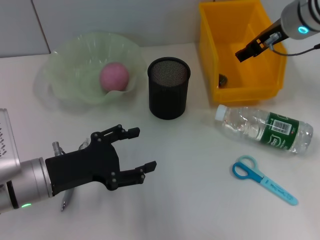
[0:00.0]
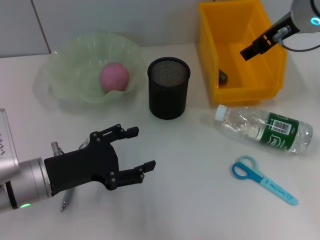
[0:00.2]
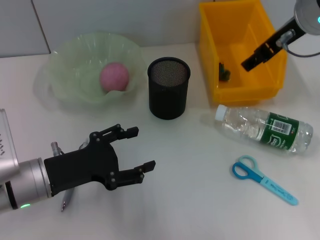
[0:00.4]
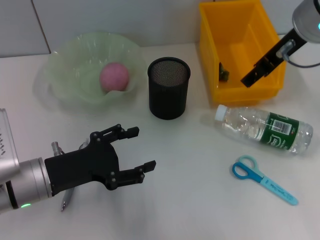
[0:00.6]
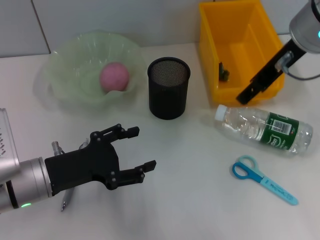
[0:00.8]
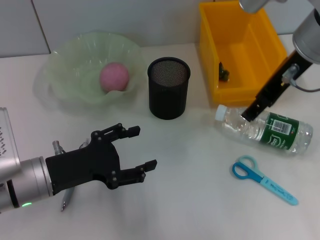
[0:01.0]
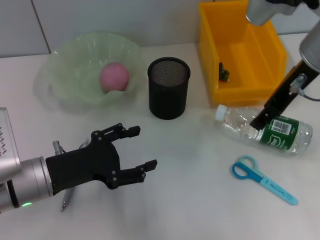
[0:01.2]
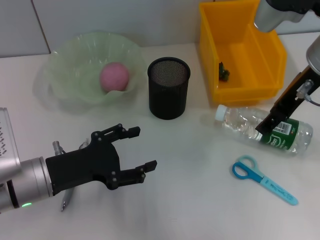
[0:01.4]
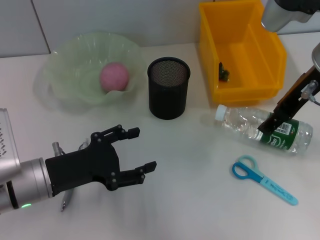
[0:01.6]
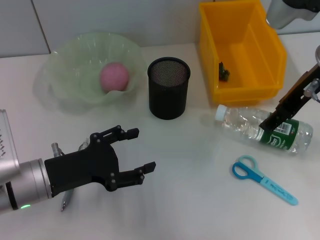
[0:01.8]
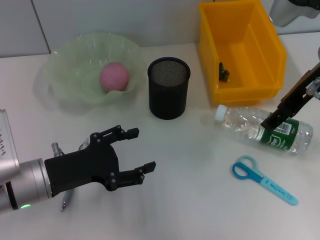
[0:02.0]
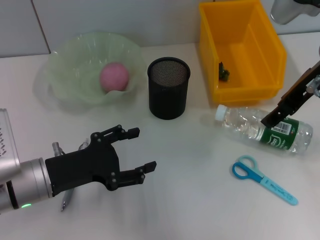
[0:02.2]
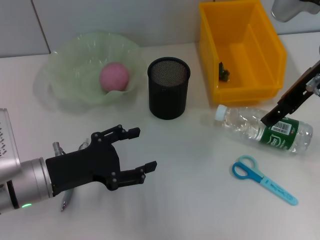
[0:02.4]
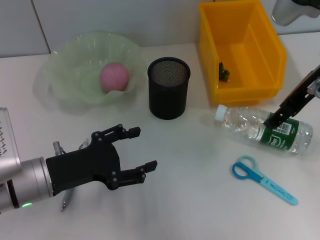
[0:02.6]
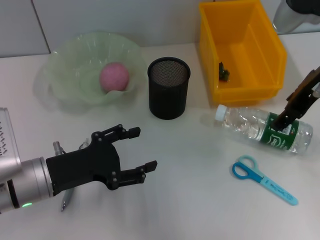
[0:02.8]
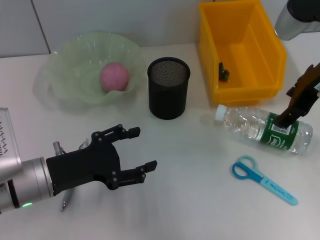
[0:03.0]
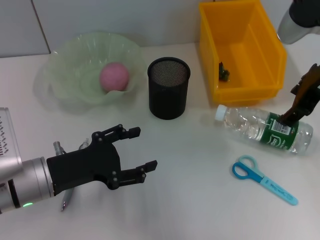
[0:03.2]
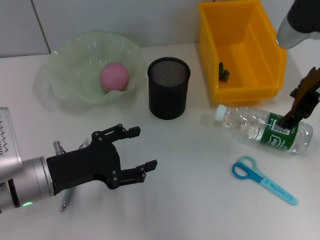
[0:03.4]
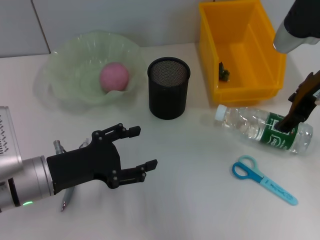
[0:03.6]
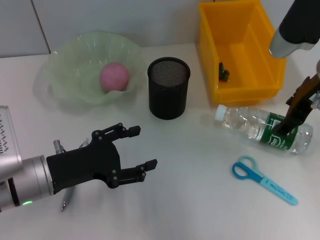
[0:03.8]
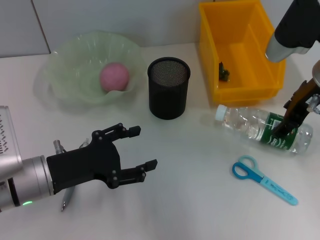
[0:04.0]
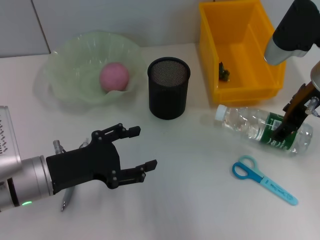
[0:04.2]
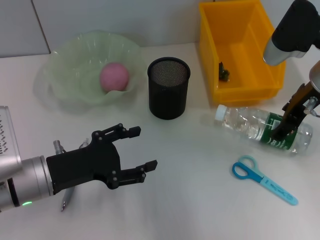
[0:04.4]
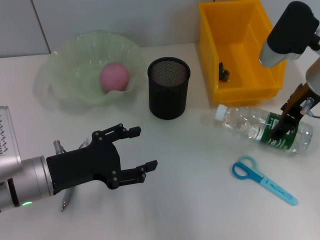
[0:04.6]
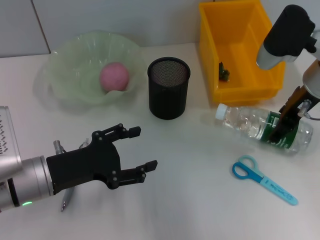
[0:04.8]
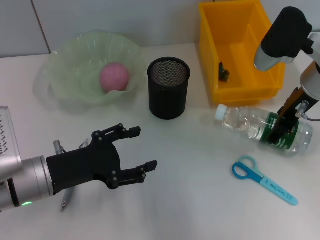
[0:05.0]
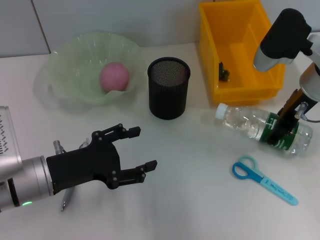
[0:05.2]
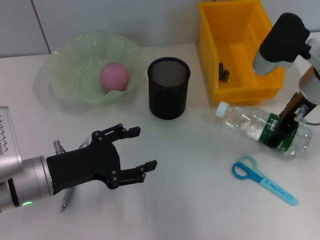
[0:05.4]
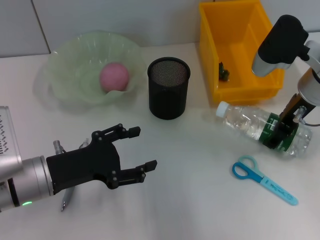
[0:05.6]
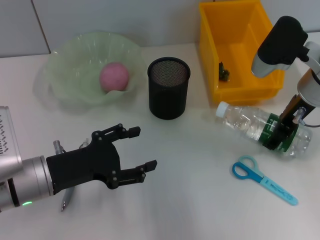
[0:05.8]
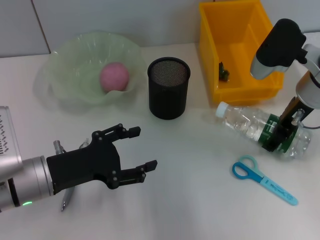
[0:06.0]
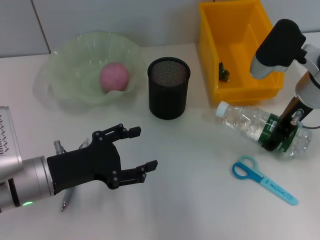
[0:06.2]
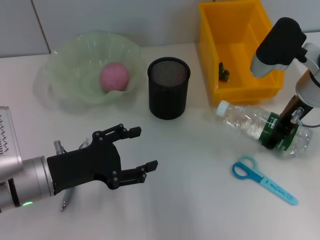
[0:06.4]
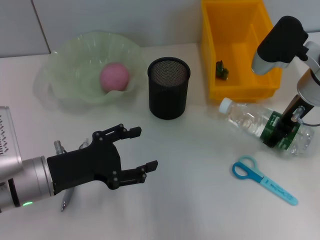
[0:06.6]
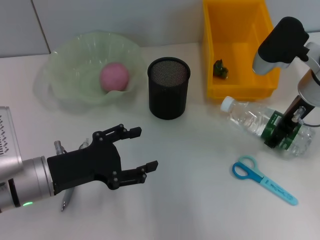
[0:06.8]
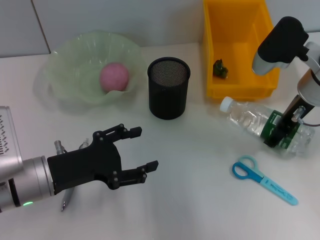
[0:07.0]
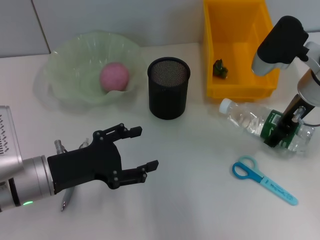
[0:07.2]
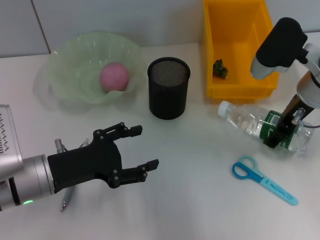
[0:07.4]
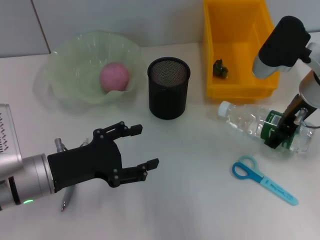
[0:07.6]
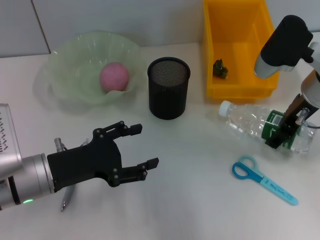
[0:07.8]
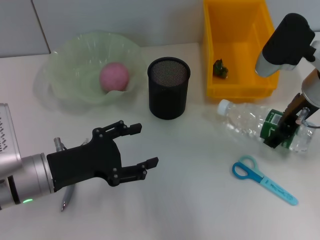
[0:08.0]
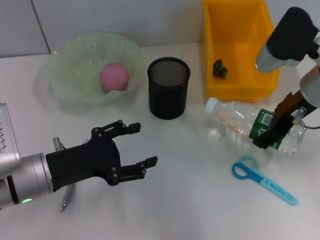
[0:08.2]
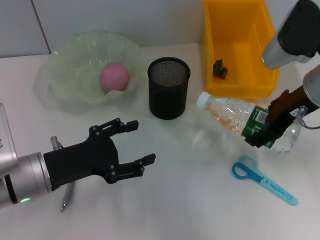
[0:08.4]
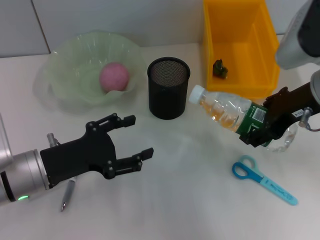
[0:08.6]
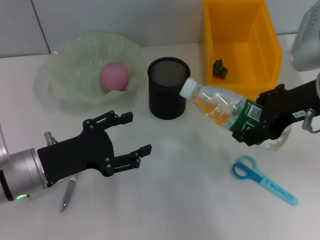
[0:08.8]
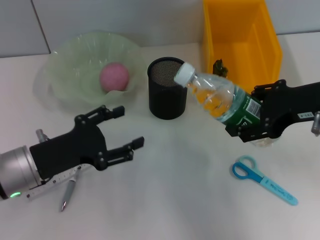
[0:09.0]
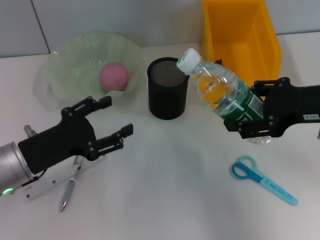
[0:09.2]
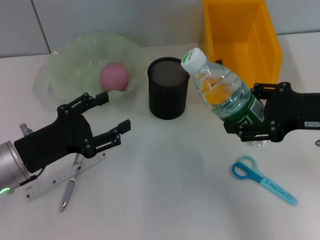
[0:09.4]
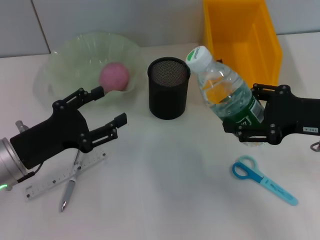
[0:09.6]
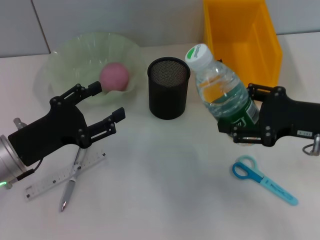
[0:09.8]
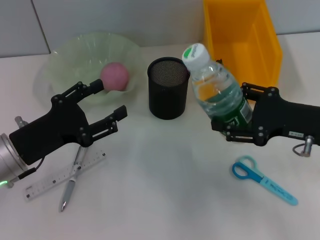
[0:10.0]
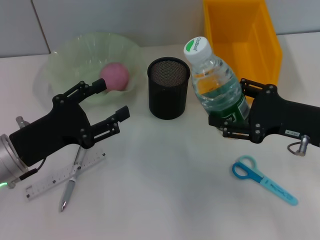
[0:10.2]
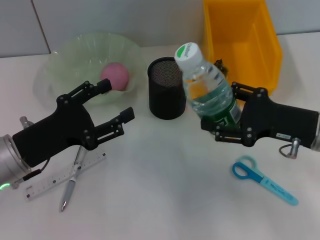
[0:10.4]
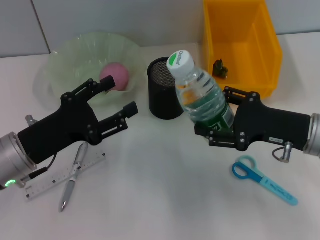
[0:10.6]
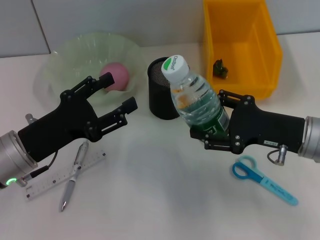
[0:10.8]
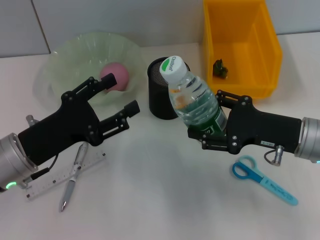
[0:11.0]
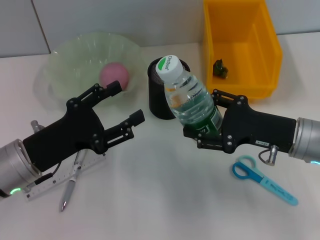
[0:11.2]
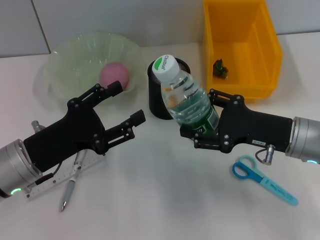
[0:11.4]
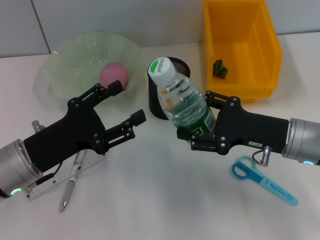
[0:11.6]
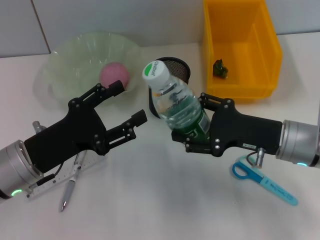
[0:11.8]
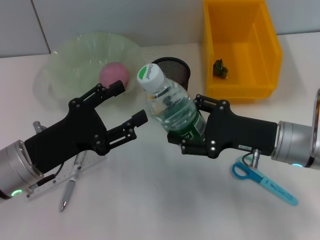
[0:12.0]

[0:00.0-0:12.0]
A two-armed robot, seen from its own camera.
Step, 0:00.4 to 0:07.2: Grab the water bottle with the right hand.
0:00.0 to 0:01.6: The right gripper moves backward, some 10 cm.
0:01.6 to 0:03.0: The grippers make only small movements.
0:03.0 to 0:04.4: The right gripper is displaced downward by approximately 5 cm.
0:04.4 to 0:06.0: The grippers move only a little.
0:06.0 to 0:07.6: Neither gripper changes place.
0:07.6 to 0:09.0: The right gripper travels backward by roughly 10 cm.
0:09.0 to 0:10.4: The right gripper moves downward, about 10 cm.
0:10.4 to 0:12.0: The right gripper changes place by some 5 cm.

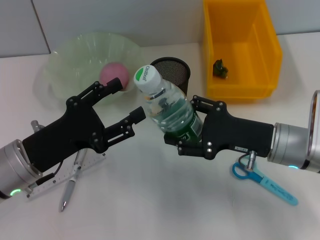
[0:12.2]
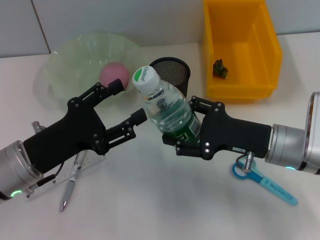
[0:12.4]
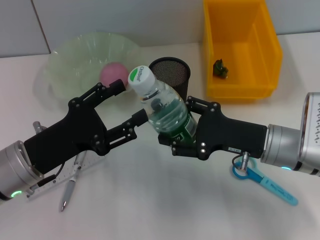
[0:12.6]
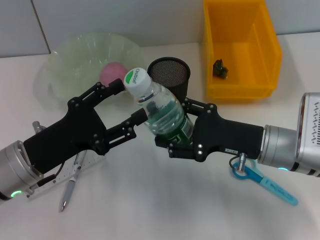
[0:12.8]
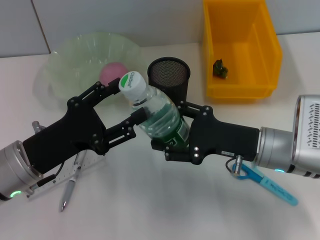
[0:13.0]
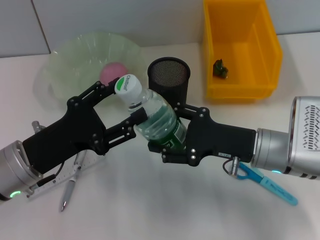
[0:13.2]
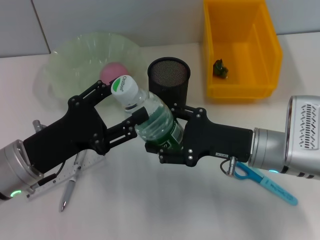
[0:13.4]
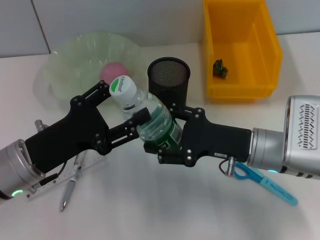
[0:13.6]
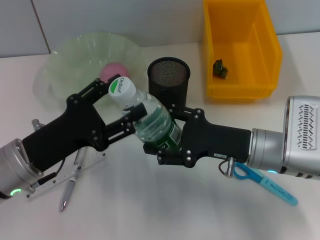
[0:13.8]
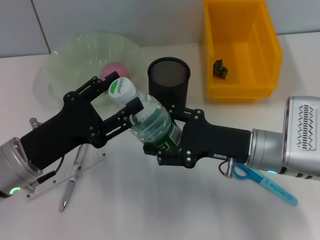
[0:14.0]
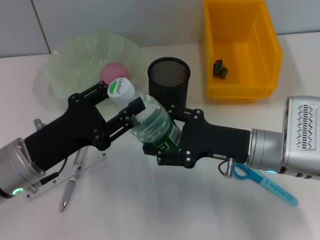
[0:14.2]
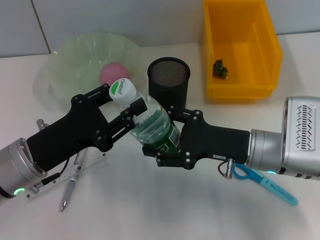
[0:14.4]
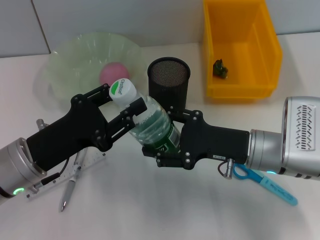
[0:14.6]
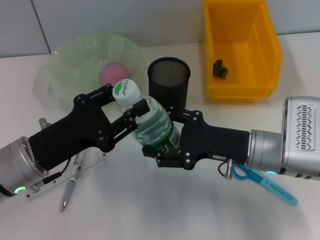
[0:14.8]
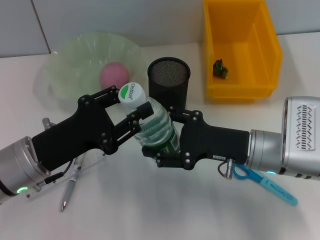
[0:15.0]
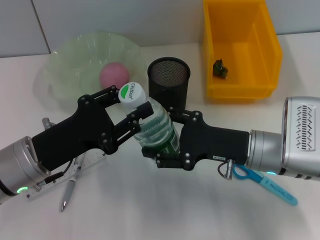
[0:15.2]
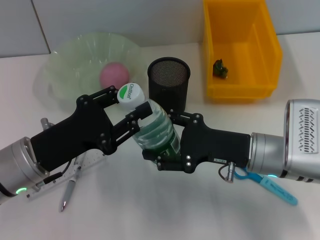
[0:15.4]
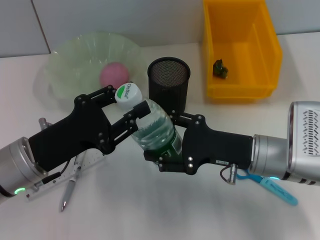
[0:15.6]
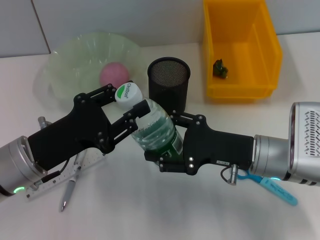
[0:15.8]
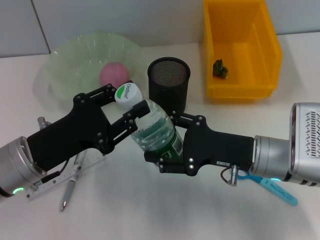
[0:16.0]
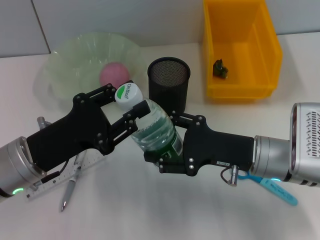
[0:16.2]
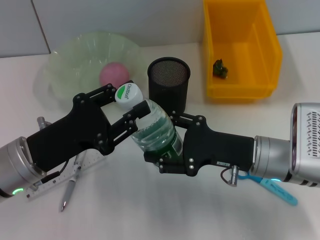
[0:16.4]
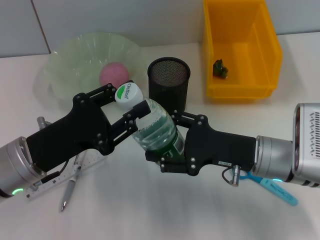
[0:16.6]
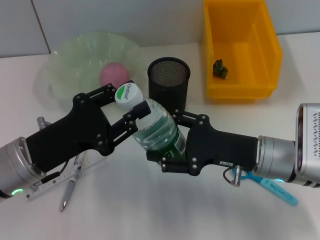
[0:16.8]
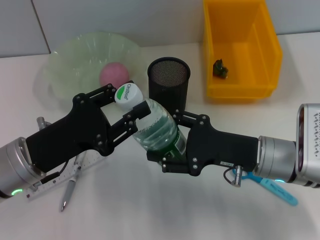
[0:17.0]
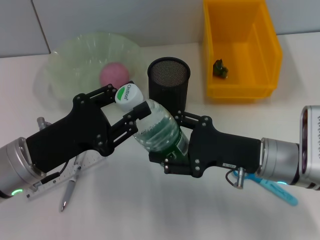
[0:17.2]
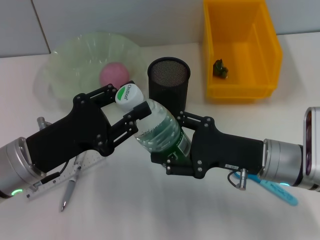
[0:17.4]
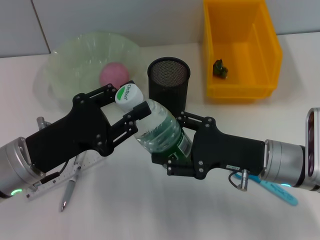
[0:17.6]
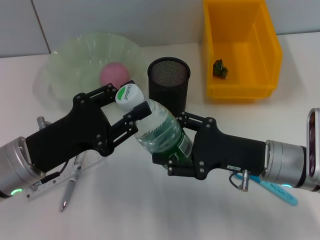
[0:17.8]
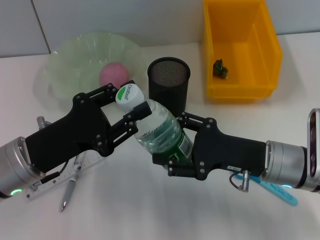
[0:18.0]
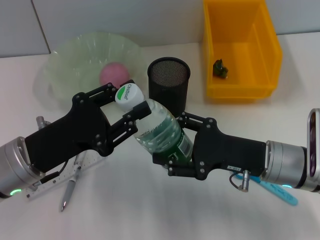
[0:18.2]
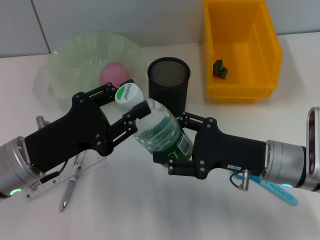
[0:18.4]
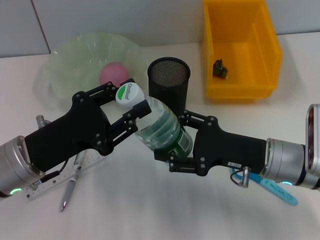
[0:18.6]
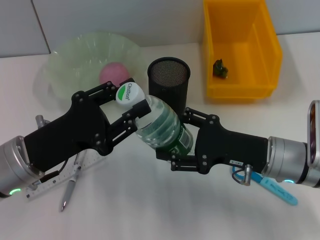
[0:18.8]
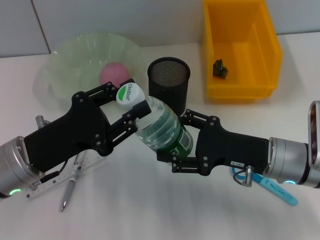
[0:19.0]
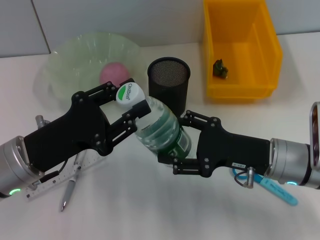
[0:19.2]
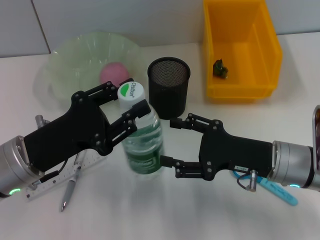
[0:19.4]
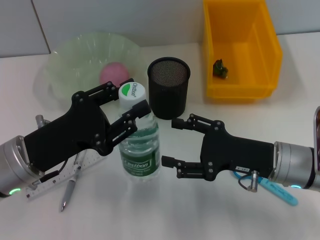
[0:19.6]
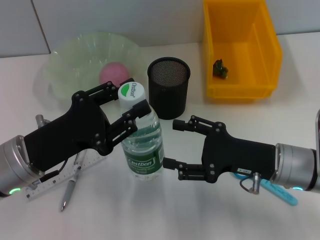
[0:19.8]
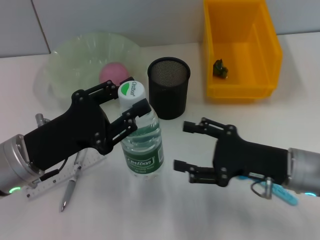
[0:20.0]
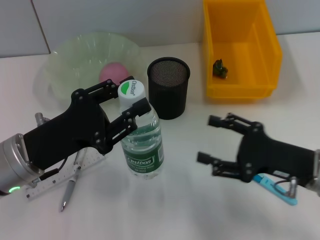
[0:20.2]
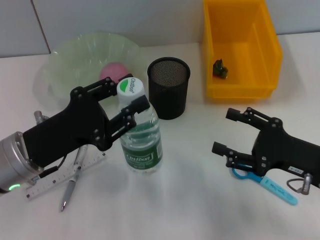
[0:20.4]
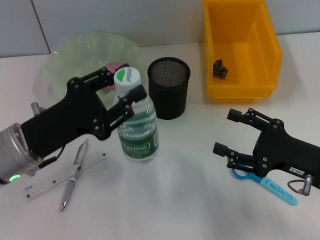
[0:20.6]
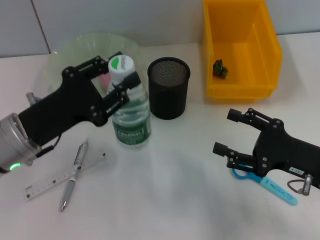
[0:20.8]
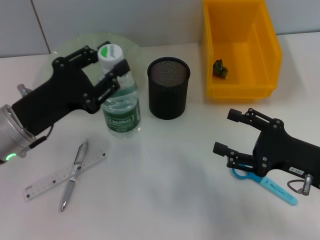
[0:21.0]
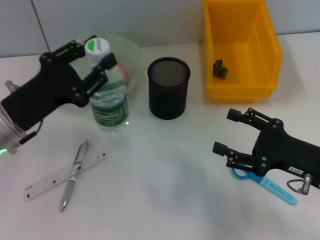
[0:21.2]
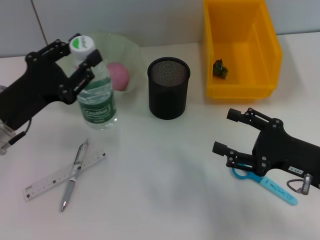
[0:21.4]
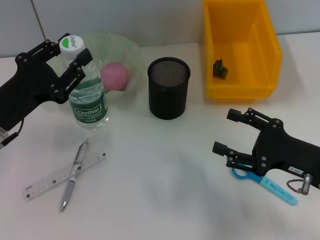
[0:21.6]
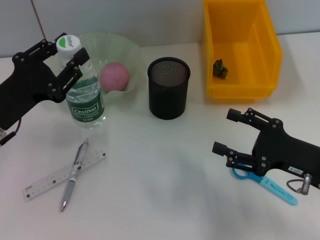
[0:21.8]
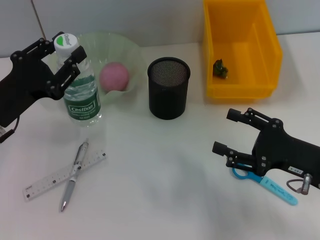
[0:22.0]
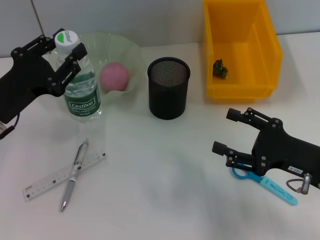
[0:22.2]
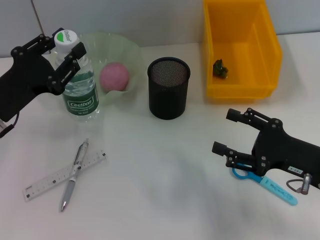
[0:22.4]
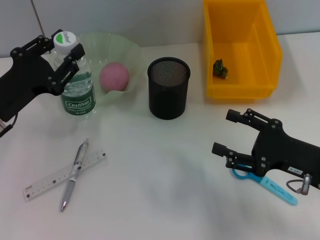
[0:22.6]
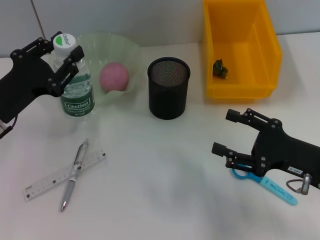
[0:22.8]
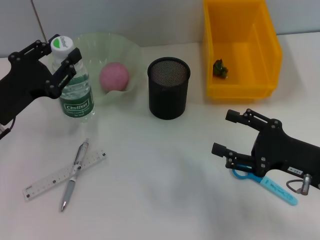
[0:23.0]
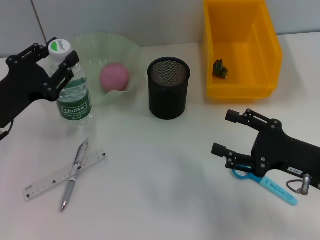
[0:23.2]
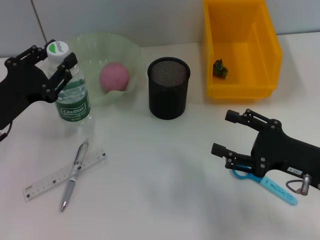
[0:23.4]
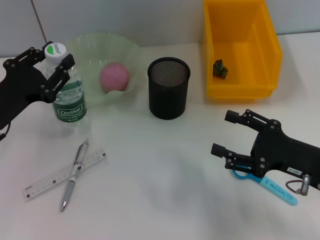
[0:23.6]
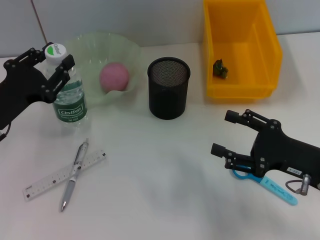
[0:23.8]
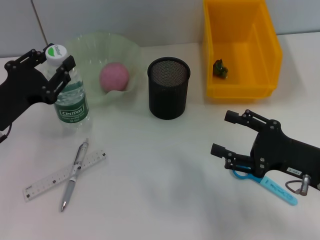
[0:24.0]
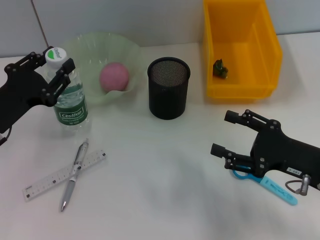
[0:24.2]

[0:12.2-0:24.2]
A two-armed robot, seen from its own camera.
Step, 0:12.2 to 0:19.8: Pass the water bottle from the right hand to the left hand.
0:12.2 to 0:13.8: There are only small adjustments of the grippers.
0:13.8 to 0:15.2: The left gripper closes up.
0:15.2 to 0:16.6: The two grippers keep their place.
0:16.6 to 0:19.8: There are only small adjustments of the grippers.
0:19.8 to 0:21.2: The right gripper shifts about 5 cm to the right.
0:21.2 to 0:24.2: The grippers stay close to where they were, moving slightly.
